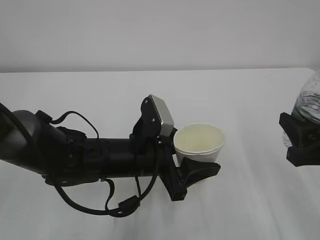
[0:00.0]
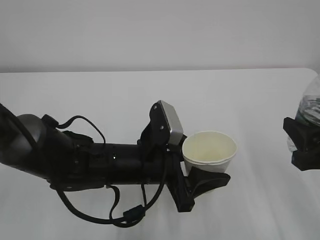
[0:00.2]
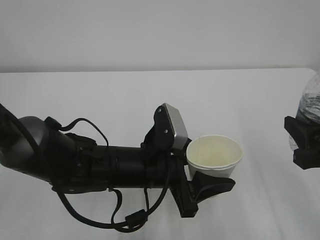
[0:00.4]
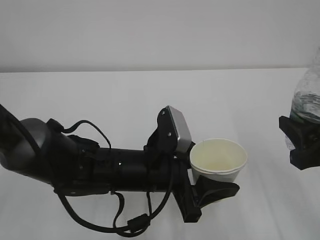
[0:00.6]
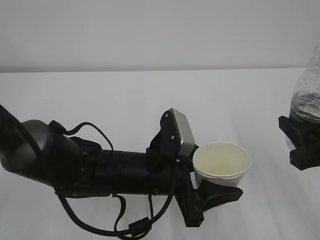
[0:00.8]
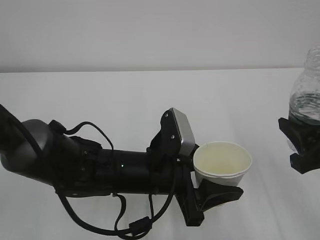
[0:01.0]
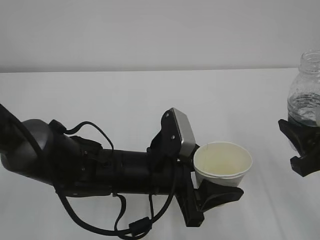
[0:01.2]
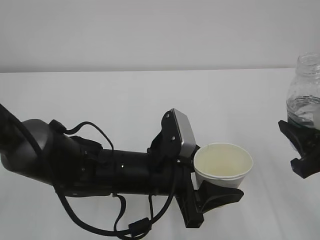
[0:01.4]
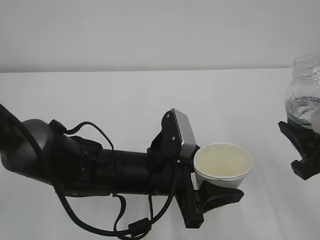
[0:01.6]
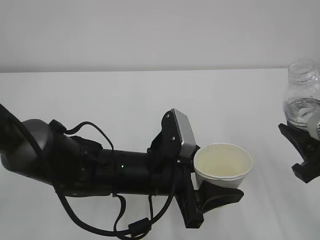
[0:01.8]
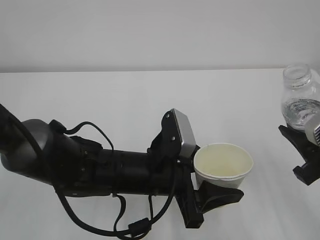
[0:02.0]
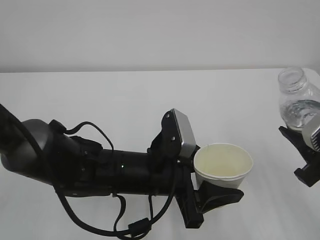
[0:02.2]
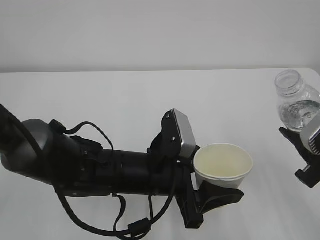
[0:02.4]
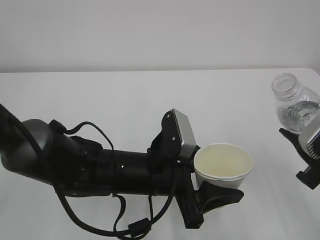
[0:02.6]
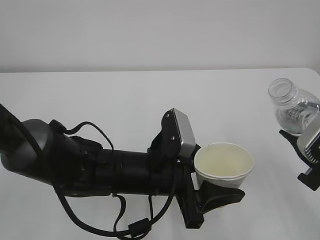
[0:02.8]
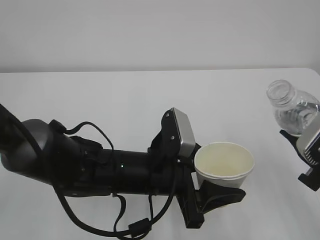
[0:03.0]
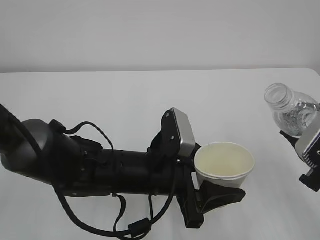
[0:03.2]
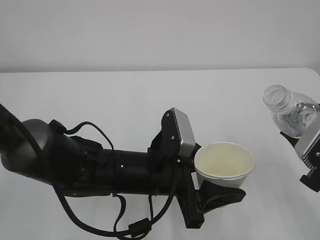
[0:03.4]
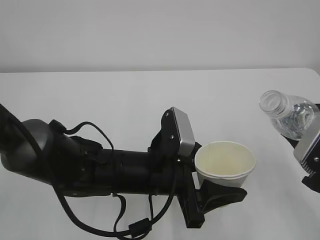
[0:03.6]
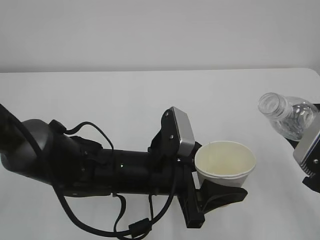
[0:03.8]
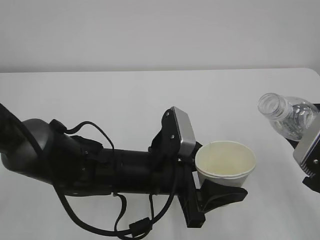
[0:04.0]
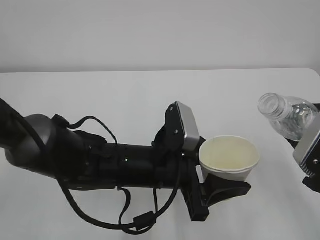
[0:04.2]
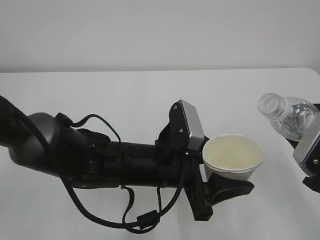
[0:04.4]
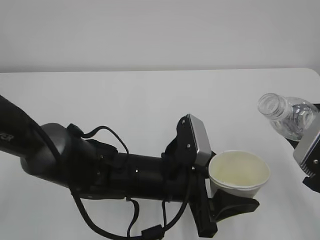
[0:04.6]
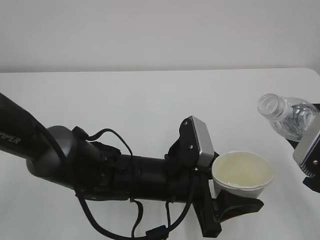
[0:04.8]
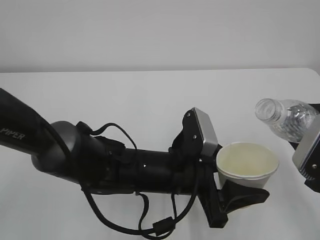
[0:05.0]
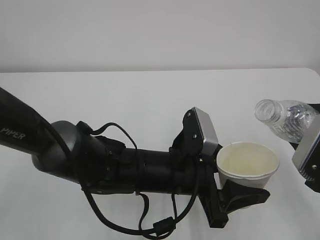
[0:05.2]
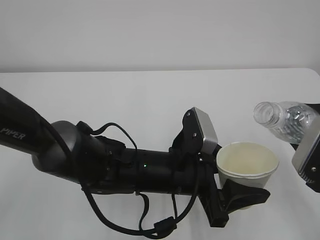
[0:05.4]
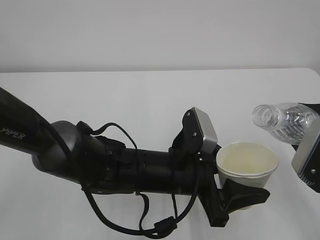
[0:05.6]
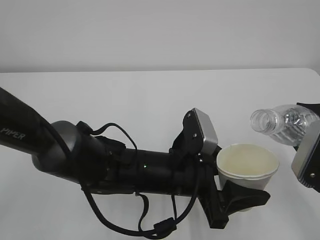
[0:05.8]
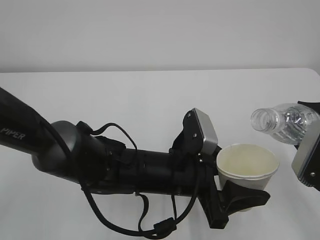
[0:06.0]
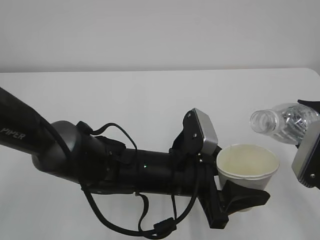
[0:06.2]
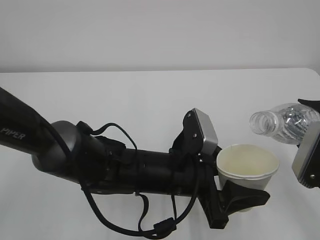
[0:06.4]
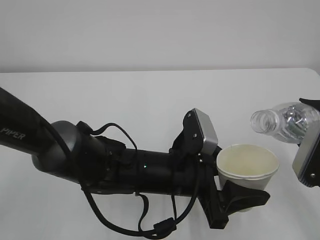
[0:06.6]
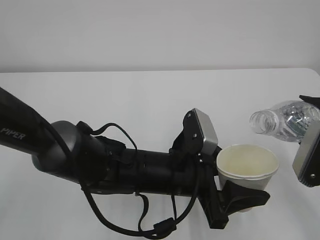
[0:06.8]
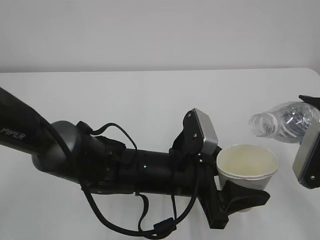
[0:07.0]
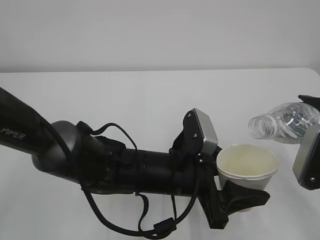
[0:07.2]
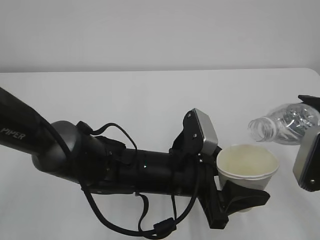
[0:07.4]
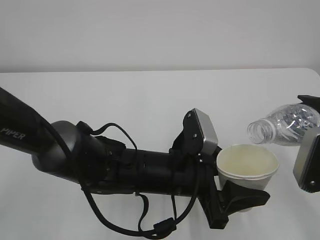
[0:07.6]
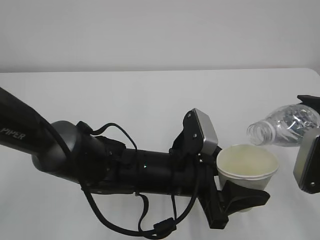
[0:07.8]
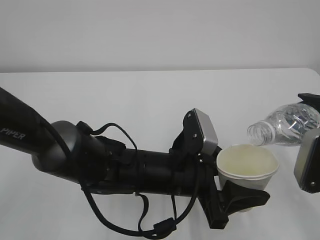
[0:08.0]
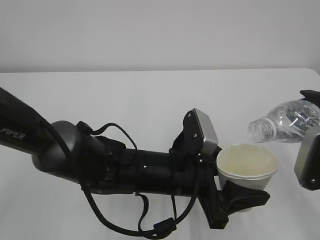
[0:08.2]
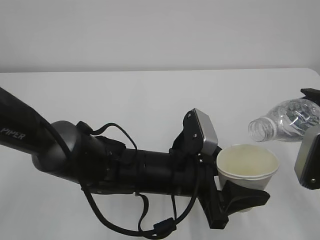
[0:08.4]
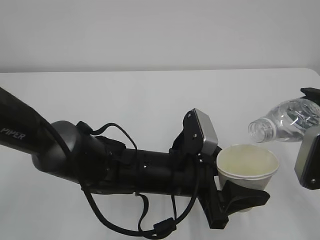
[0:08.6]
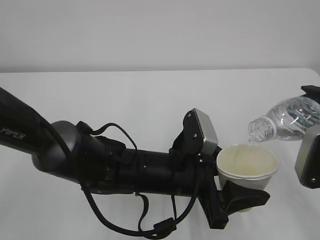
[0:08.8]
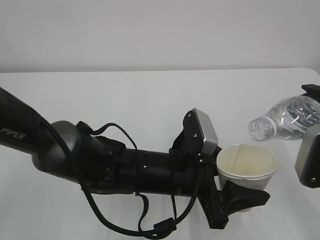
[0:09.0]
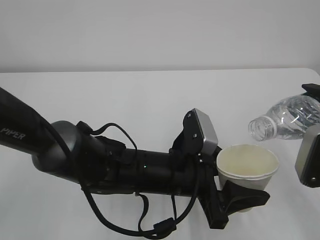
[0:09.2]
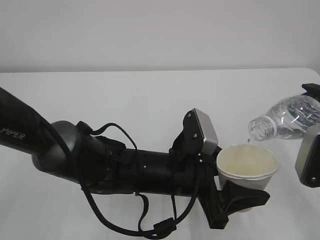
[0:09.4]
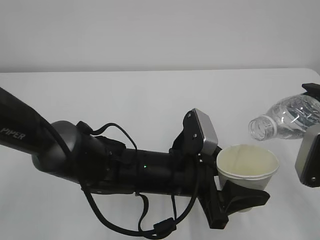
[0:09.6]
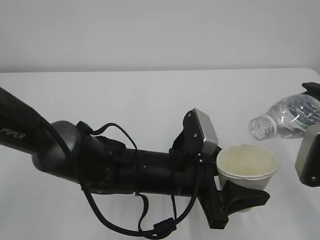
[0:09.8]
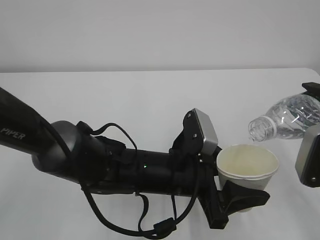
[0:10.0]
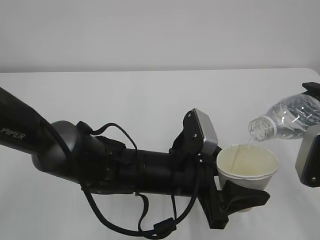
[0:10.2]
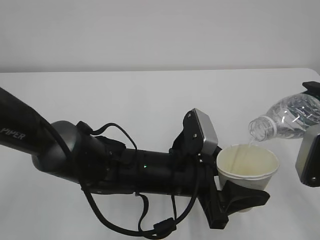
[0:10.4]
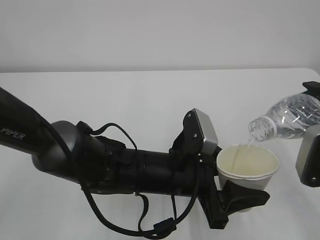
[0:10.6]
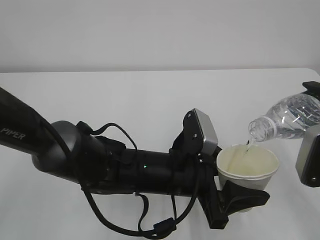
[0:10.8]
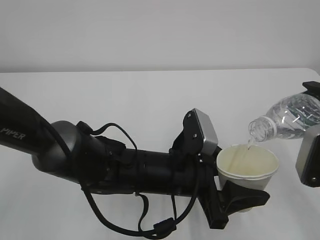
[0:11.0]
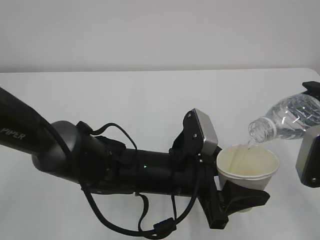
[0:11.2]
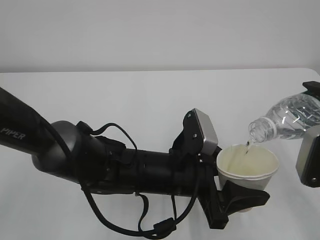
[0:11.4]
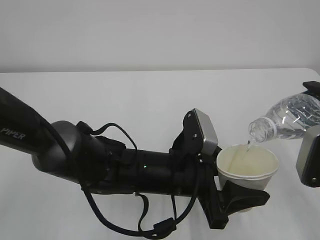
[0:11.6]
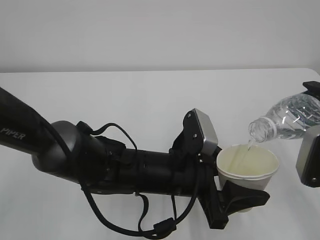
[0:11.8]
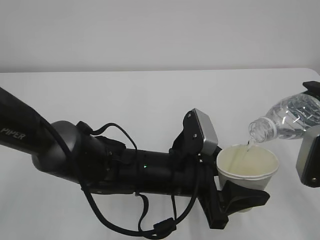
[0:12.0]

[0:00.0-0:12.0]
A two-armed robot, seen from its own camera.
0:03.0 to 0:04.4: The grippers make only small movements.
0:04.4 to 0:06.0: The grippers make only small movements.
0:06.0 to 0:09.0: The grippers move only a little.
0:09.0 to 0:12.0: The two grippers keep their place.

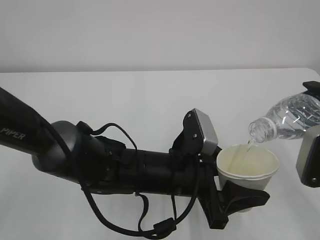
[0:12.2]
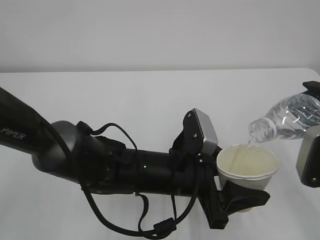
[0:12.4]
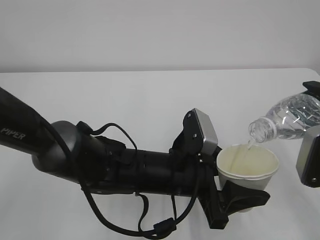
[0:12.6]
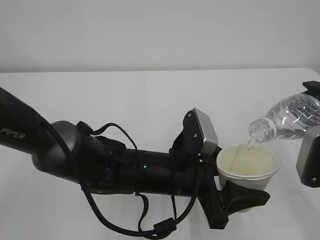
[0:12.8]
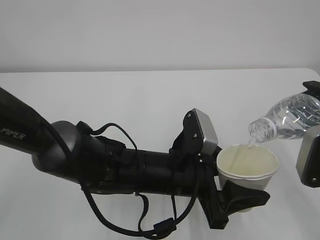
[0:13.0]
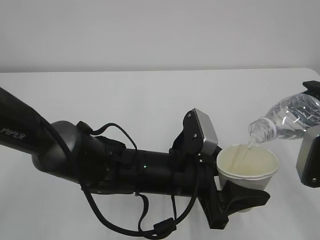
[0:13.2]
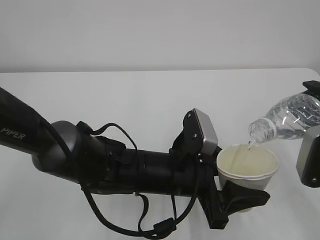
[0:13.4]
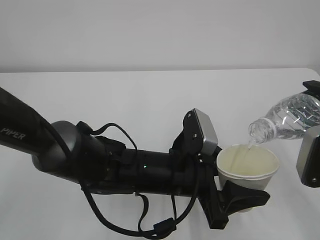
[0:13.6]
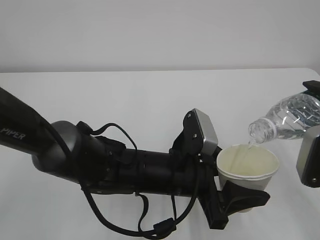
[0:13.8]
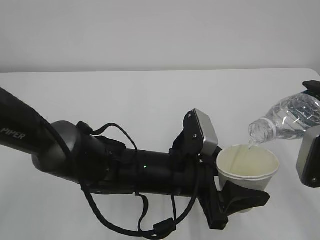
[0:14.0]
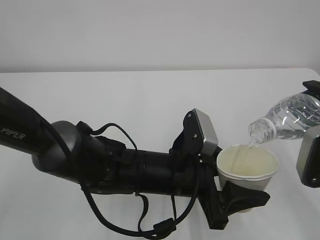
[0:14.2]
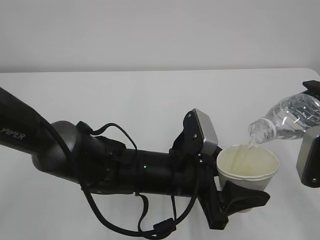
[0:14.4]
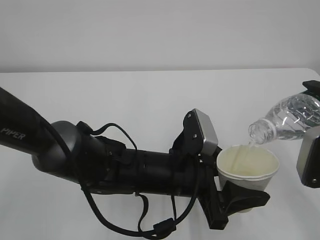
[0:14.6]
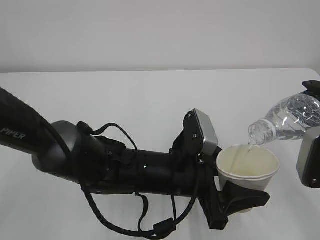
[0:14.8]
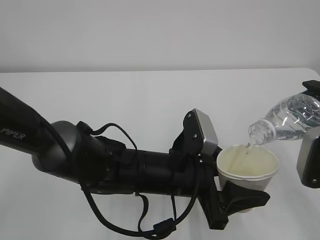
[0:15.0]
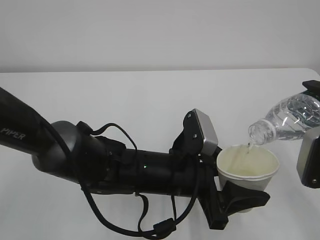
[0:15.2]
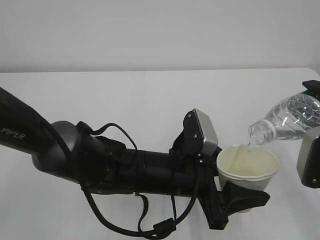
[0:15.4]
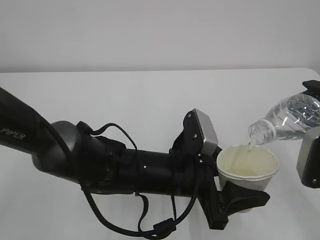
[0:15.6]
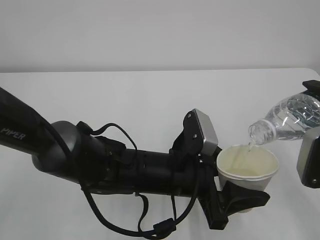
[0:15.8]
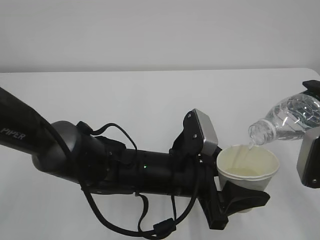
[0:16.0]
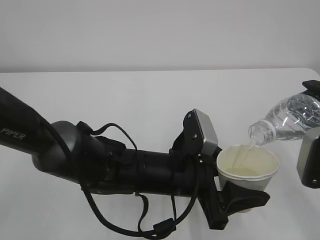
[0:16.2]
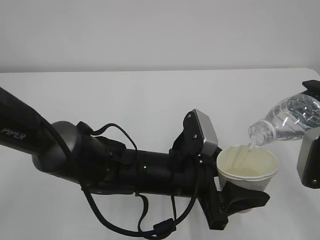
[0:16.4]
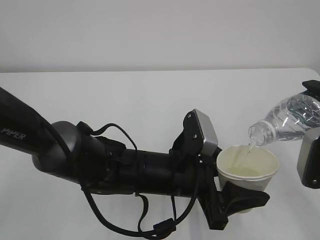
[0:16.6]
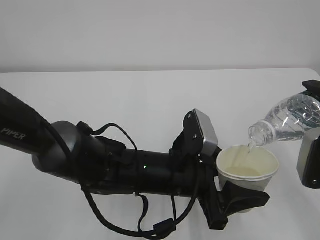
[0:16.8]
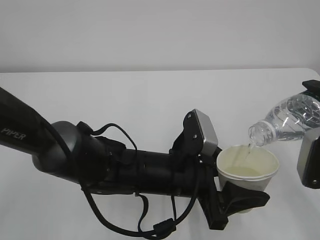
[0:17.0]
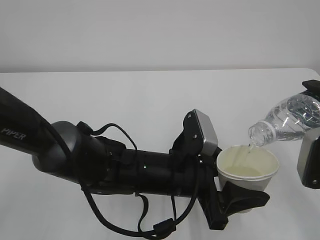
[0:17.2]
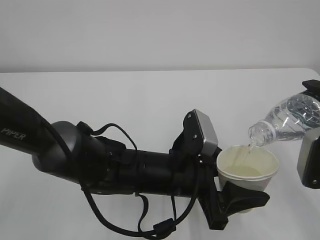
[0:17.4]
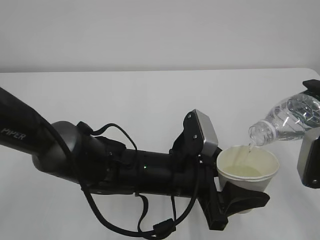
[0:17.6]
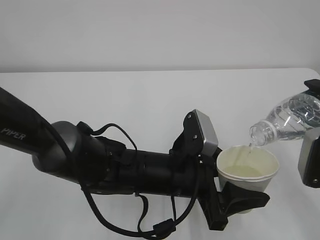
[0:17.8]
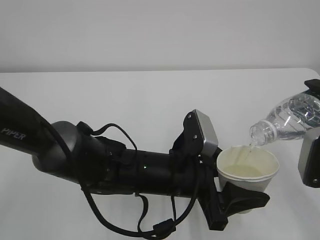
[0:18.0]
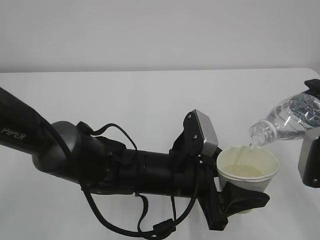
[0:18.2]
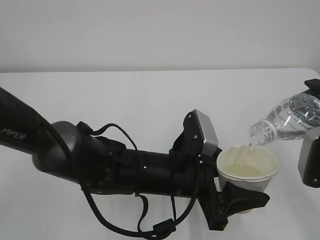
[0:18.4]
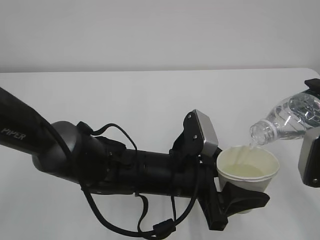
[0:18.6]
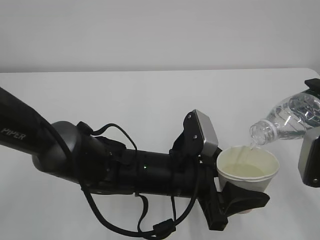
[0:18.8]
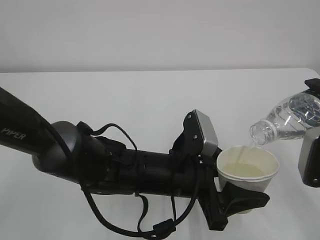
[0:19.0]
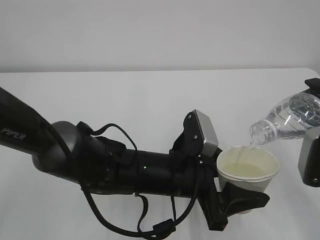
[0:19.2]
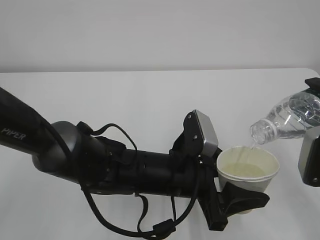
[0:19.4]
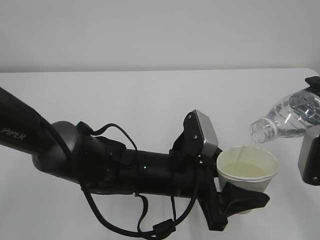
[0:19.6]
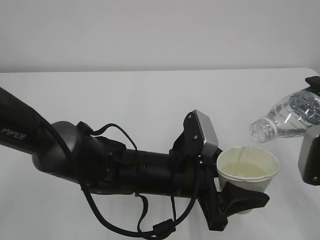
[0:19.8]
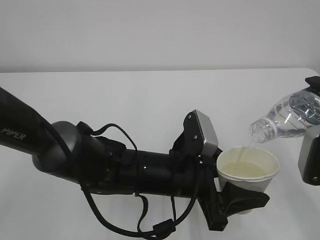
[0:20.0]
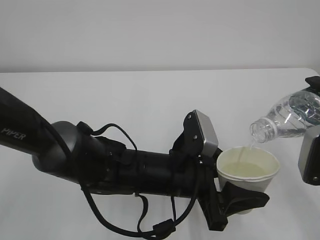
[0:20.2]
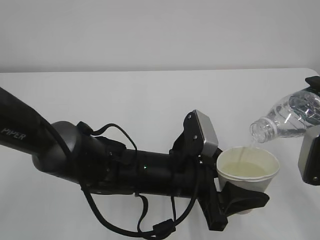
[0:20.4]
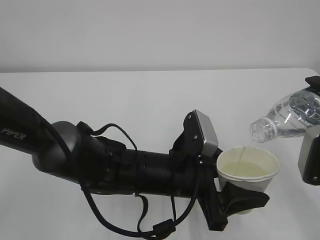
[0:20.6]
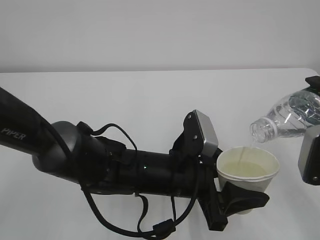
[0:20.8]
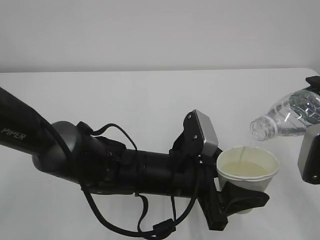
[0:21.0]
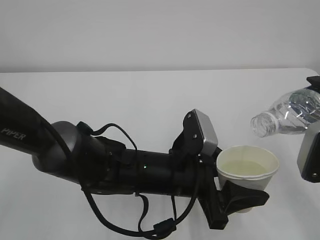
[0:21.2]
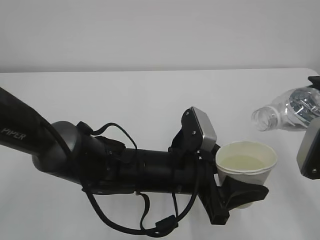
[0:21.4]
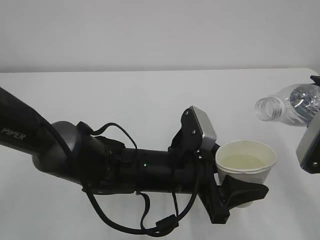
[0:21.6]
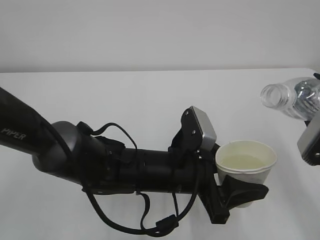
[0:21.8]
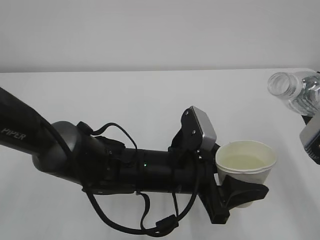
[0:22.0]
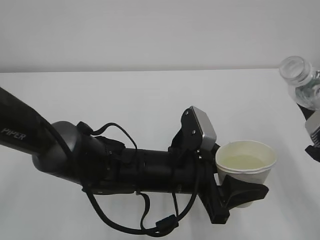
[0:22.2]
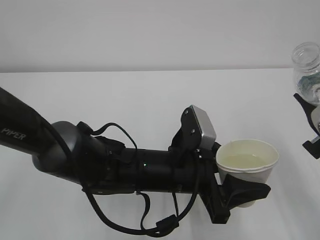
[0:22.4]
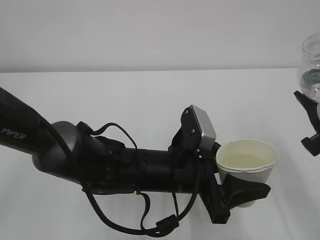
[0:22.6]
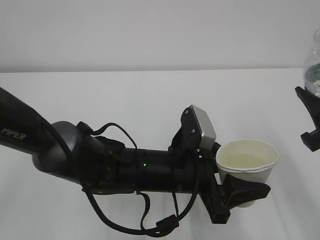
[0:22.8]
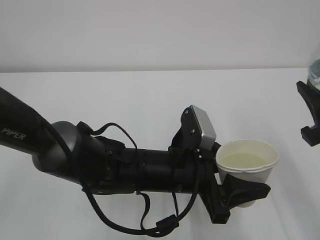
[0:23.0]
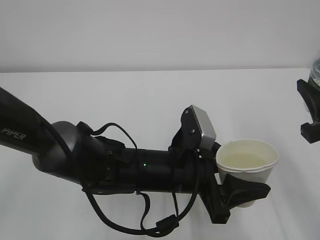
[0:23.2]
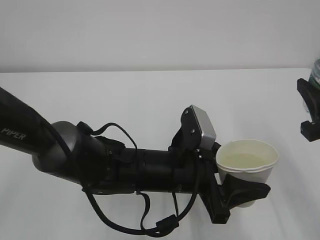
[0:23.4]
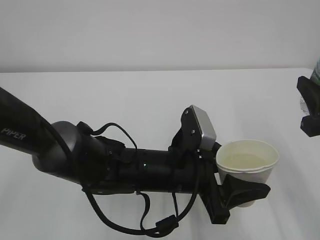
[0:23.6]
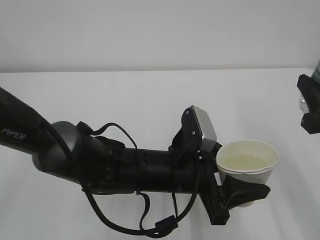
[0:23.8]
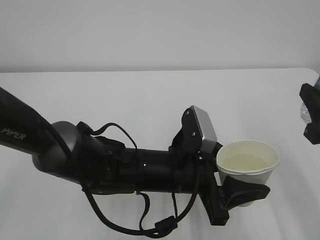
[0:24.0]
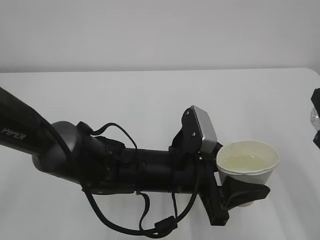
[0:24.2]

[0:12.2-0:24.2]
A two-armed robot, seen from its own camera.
0:12.2 to 0:21.2: Neither gripper changes place.
